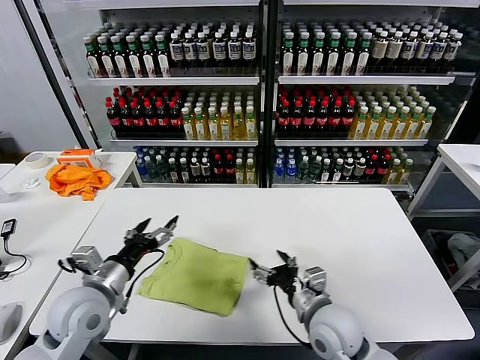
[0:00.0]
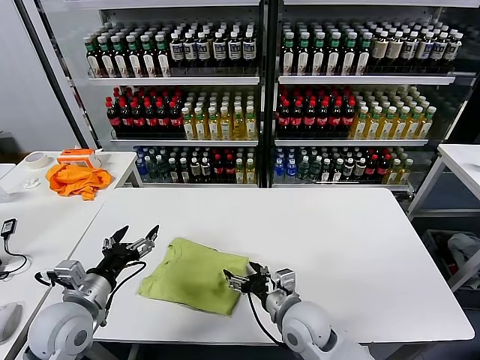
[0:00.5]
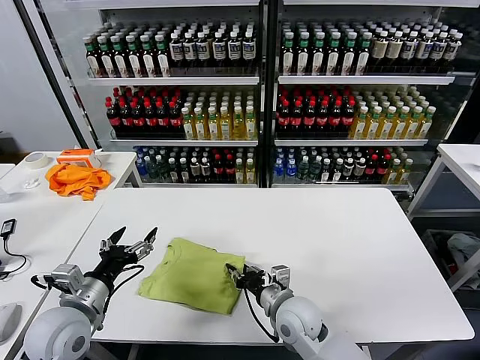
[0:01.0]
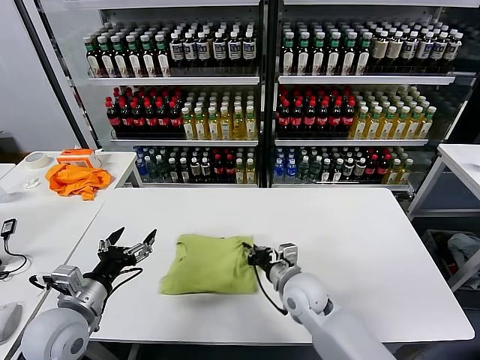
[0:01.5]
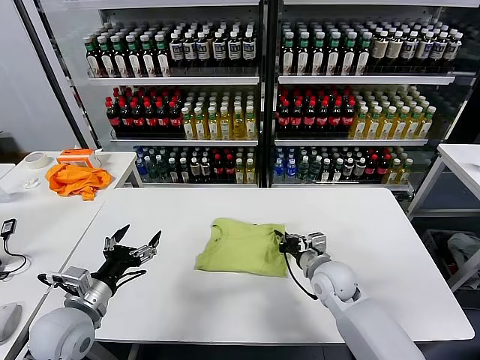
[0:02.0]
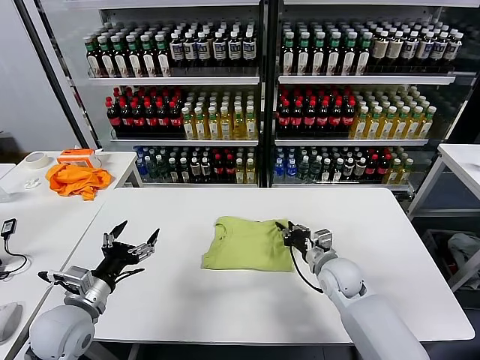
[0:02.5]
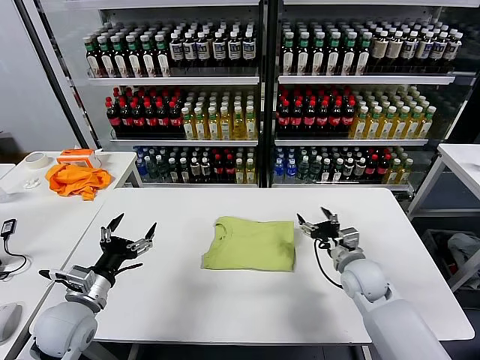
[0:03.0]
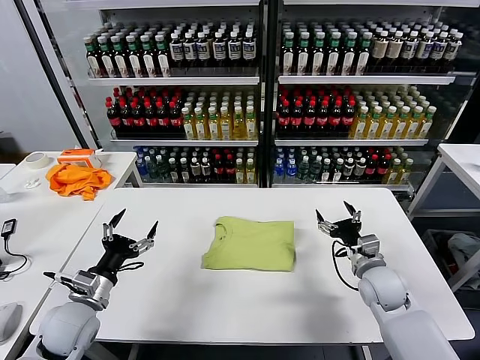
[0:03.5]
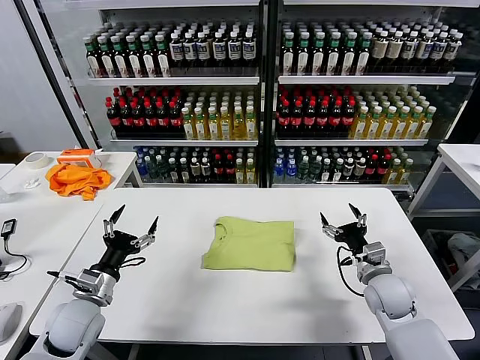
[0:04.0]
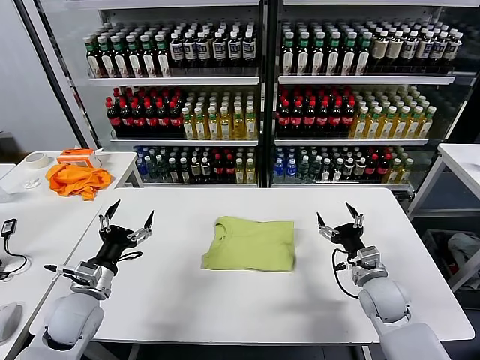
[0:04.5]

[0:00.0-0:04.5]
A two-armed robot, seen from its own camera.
Task of the whole recording: fold and organize the clothes.
Step, 0:00.0 to 0:02.5: Drag the clothes to the center of the table.
0:00.0 to 0:02.0: The left gripper shifts by roughly 5 cm. The right gripper is displaced forward by approximately 10 cm, and closes its fingers.
0:02.0 to 0:04.5: The right gripper is displaced to the right by about 10 cm, and opens up; the left gripper ends up roughly 5 cm from where it was.

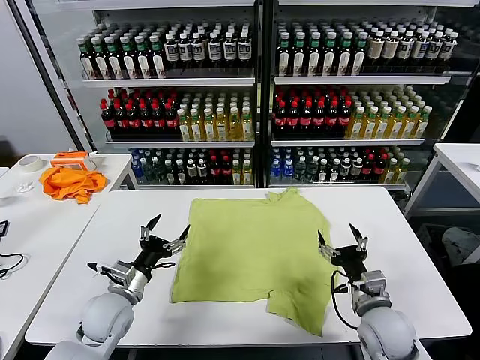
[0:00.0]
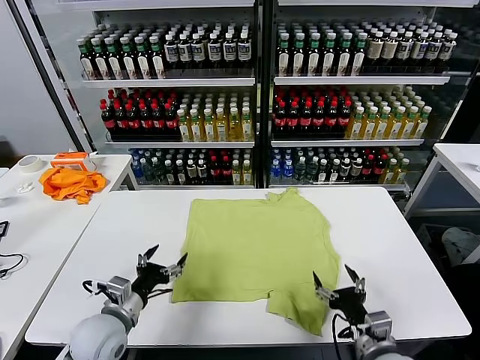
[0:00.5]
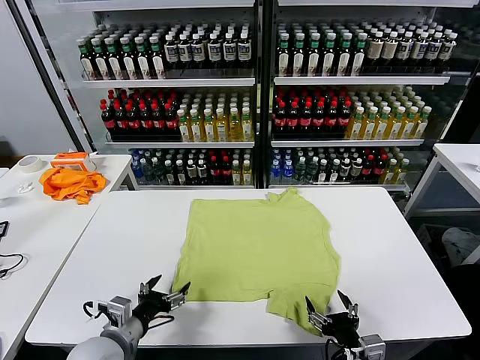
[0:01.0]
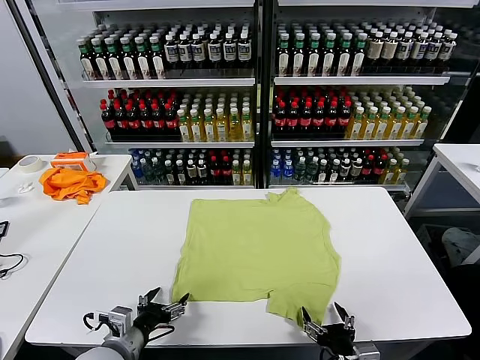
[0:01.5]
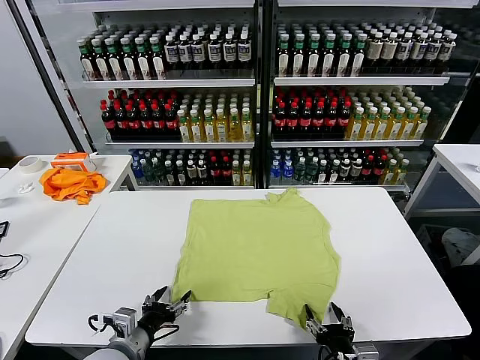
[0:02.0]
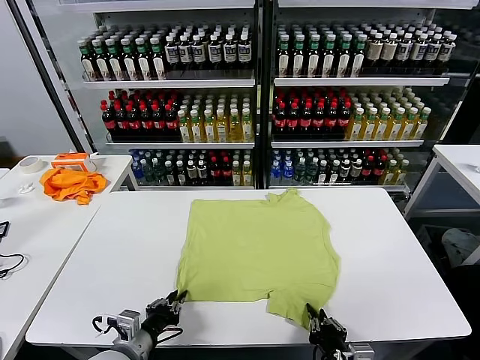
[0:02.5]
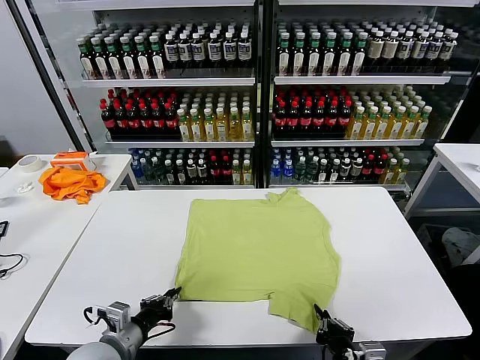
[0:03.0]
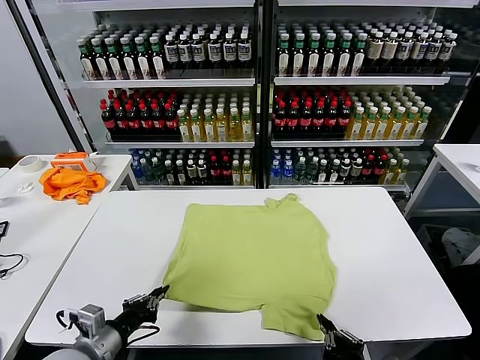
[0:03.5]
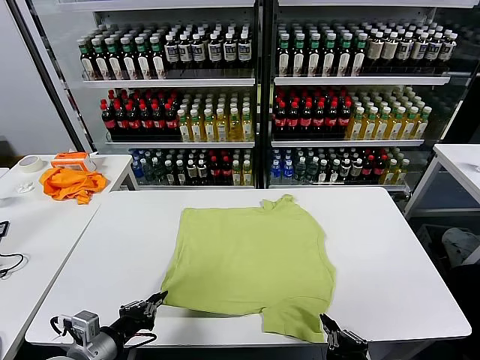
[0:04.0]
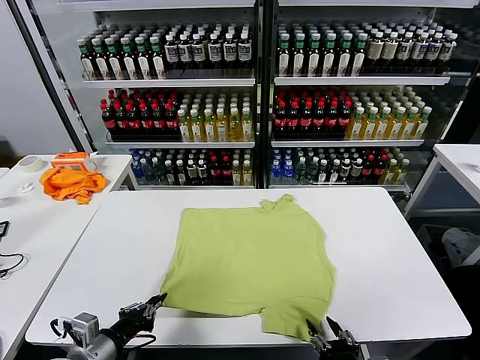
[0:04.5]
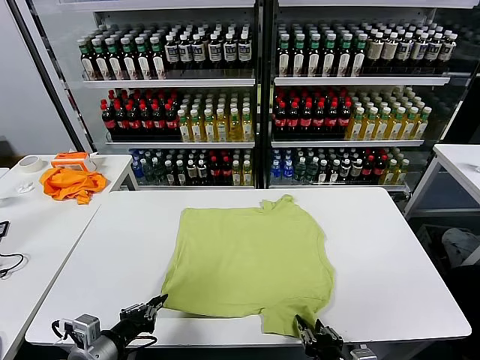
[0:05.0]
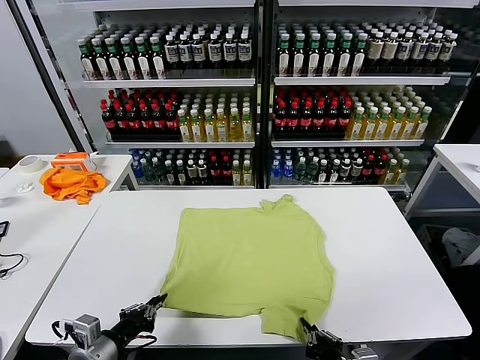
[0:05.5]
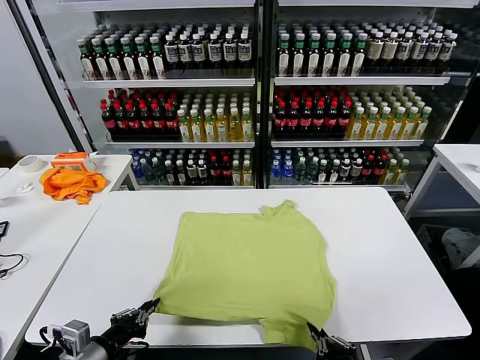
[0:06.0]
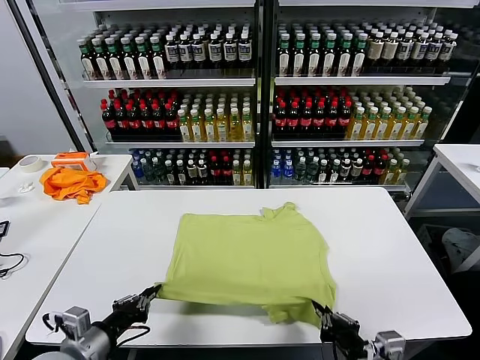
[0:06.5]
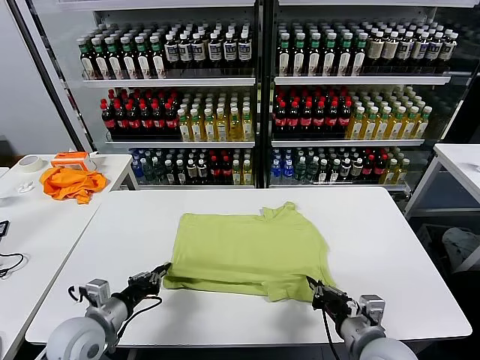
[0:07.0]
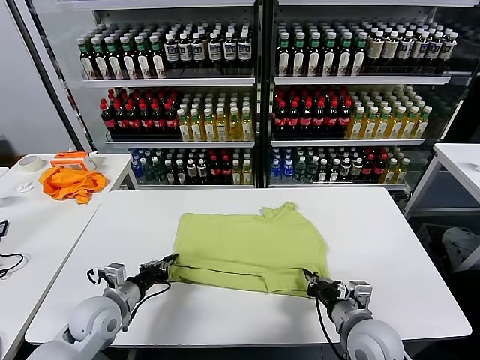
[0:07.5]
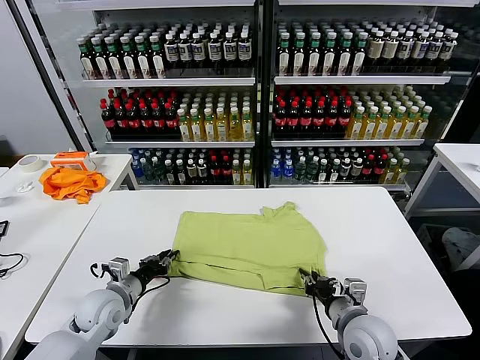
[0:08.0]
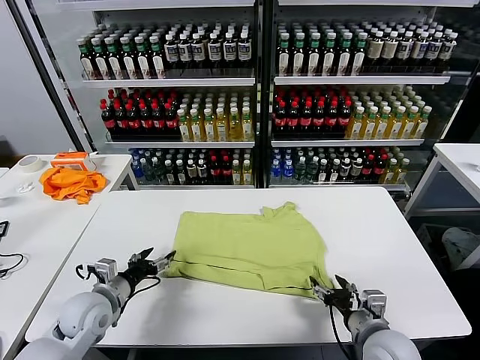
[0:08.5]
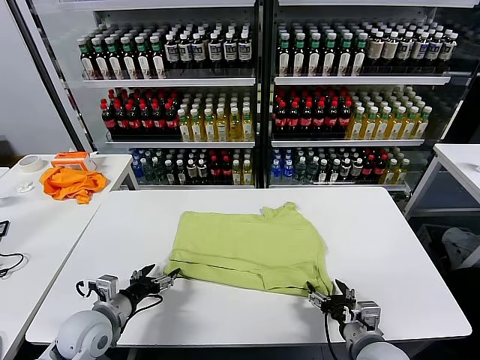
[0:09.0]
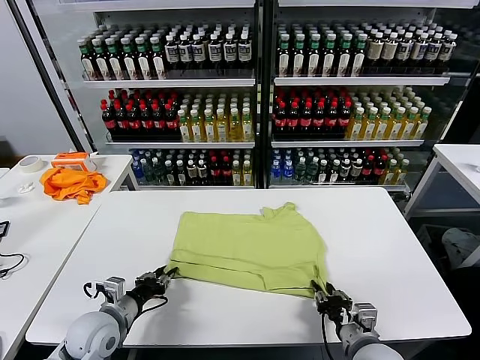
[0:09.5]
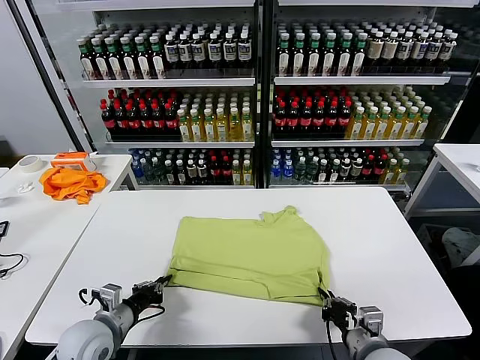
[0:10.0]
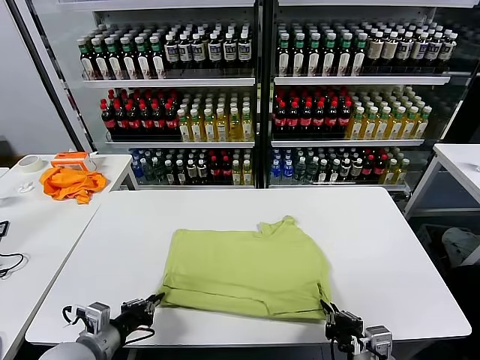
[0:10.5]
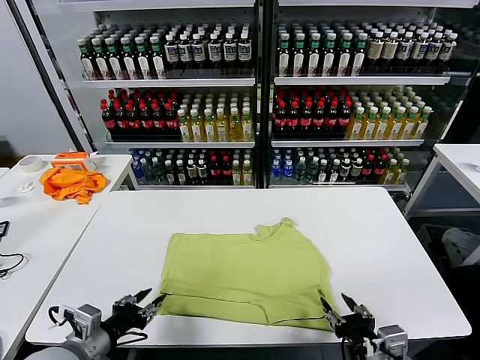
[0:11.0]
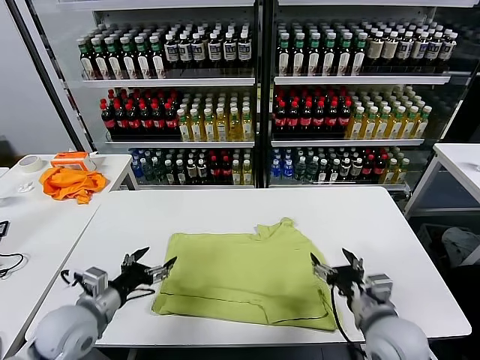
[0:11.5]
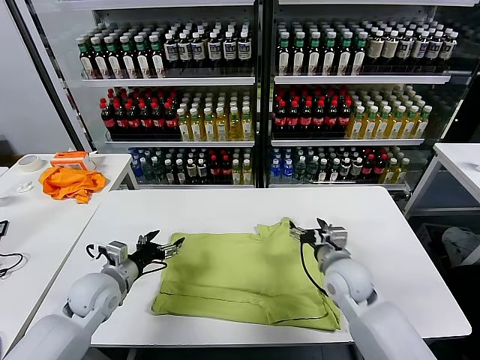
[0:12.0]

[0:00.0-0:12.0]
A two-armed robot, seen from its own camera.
Task of the whole recording: fold and organize the clothes.
Step, 0:00.0 to 0:02.5: use both grippers simultaneously to clamp the lower edge of the clothing fabric.
Step, 0:03.0 to 0:08.0: use both grippers to drag the lower edge of the fabric forward and fold it over the upper edge.
Step, 0:08.5 to 0:10.5: Drag the clothes downward with both gripper.
0:02.0 to 0:04.0: The two grippers go about 5 cm upward. The right gripper closes its fingers; the left gripper closes its fingers.
0:04.0 to 0:06.0: The right gripper opens and closes again.
0:06.0 to 0:08.0: The left gripper heads forward and downward, covering about 20 cm. Meanwhile the right gripper goes some 15 cm forward, and opens.
0:08.0 to 0:10.0: The two grippers go roughly 5 cm backward. The left gripper opens and closes again, while the right gripper closes its fingers.
0:10.0 to 0:12.0: The left gripper goes approximately 10 cm forward, and opens up. The right gripper is displaced forward by about 20 cm, and opens its fingers.

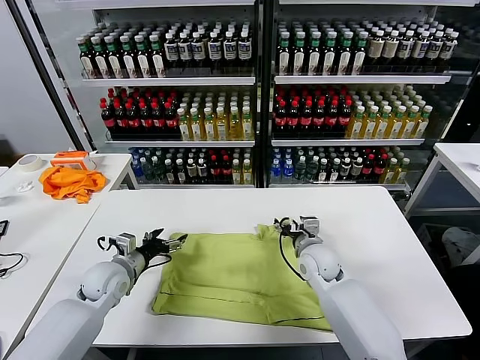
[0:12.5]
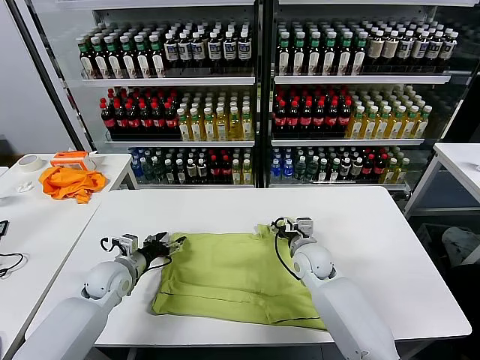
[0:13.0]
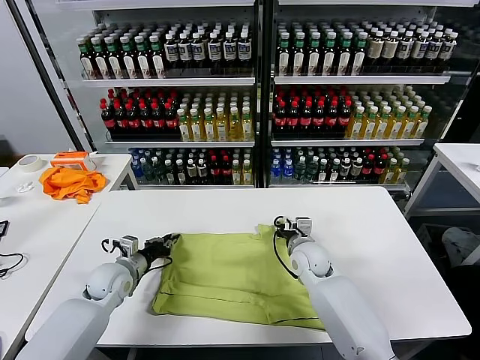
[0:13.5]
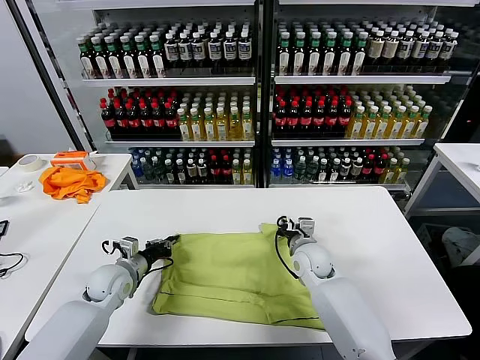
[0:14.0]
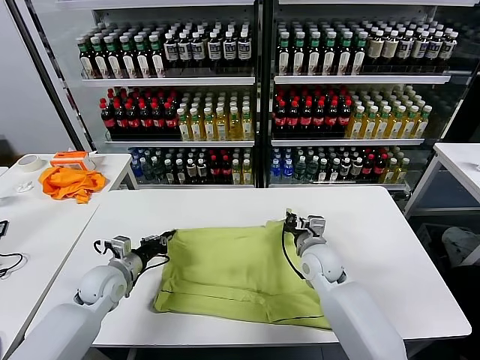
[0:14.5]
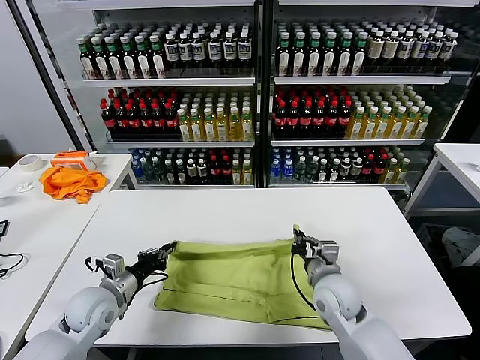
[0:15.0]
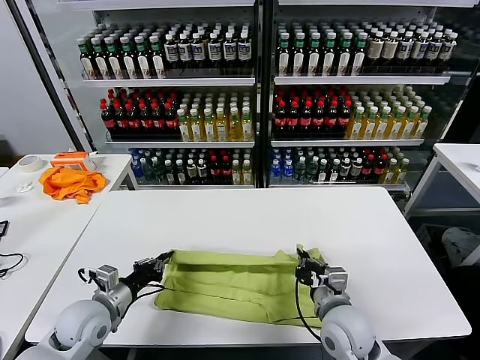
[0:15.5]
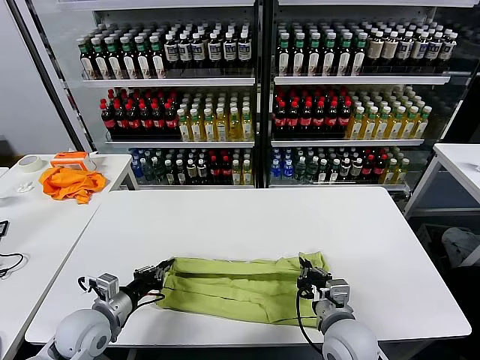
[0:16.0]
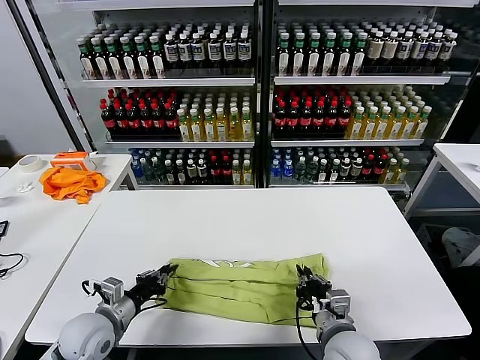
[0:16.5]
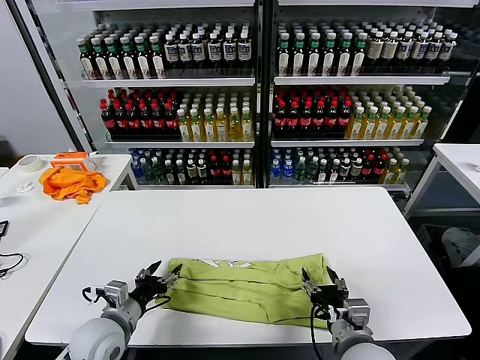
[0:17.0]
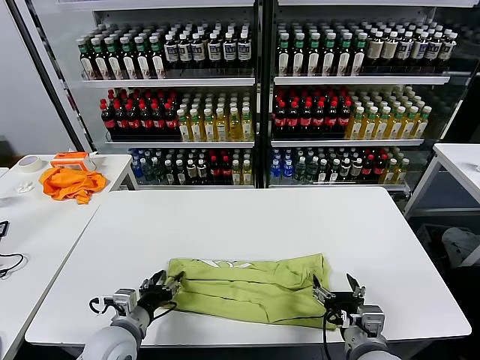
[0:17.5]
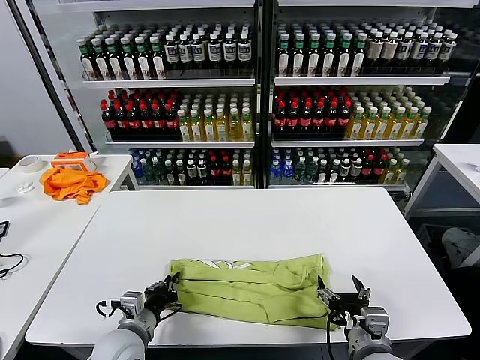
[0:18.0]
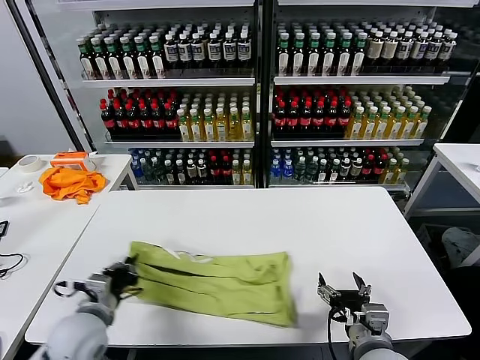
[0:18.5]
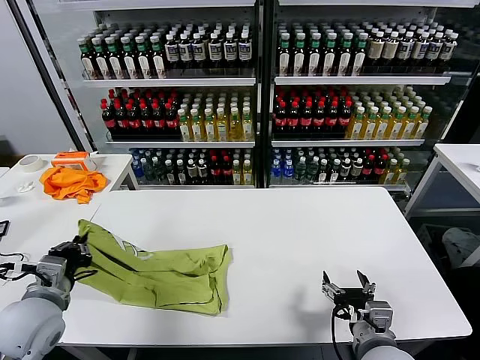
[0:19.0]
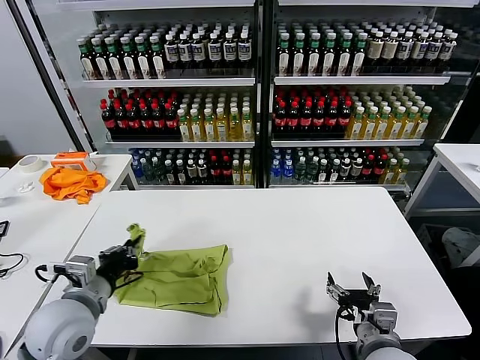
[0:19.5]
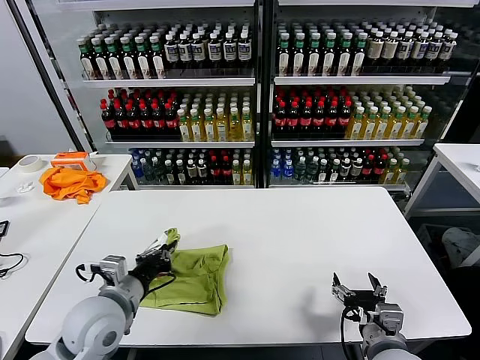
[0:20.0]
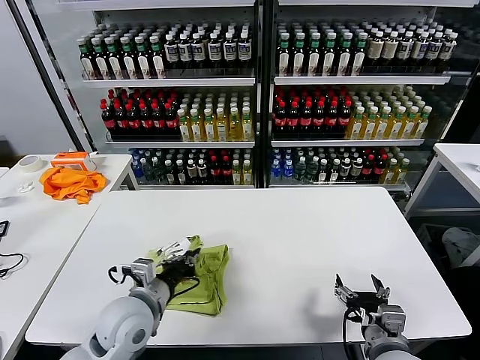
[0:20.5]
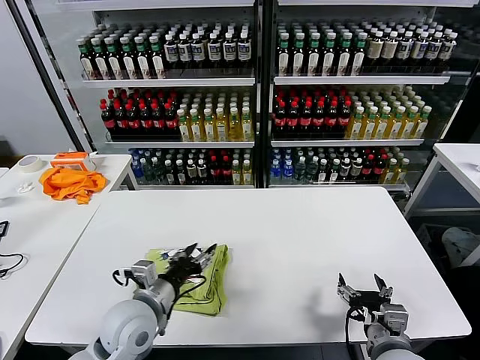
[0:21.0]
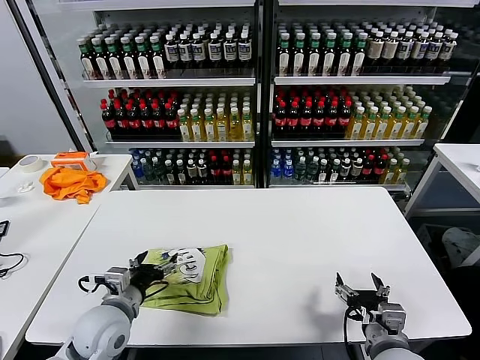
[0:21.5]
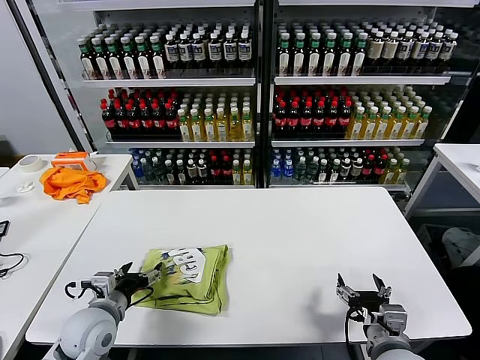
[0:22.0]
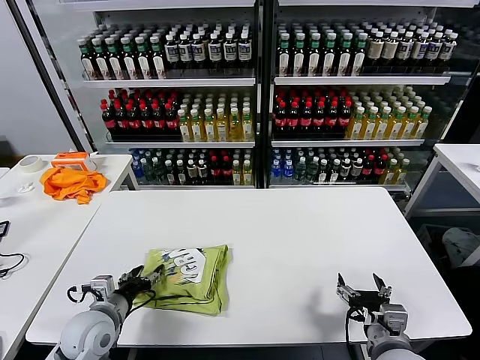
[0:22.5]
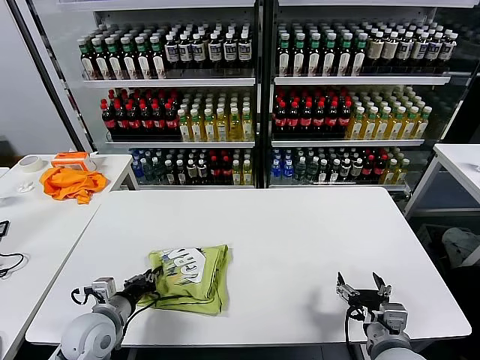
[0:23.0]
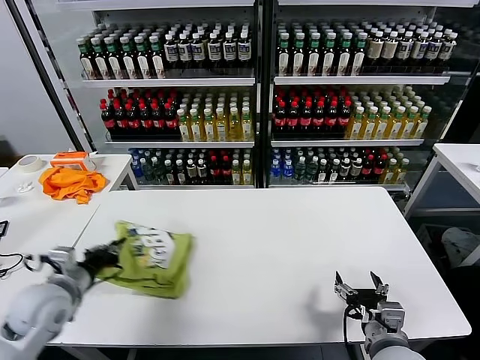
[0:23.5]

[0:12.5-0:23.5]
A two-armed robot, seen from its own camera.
Task of the whole recording: fold and organize the clothes.
Step, 0:14.0 to 0:16.5: use both grippers to drag the upper edge of the fabric backward and fold it over the lower edge.
Step, 0:17.0 to 0:18.0: use the left gripper to clamp the left edge of the fabric.
Step, 0:18.5 to 0:20.5: use the left gripper to drag the left edge of the fabric to the left and folds it over the right edge.
0:12.5 to 0:14.5: The left gripper closes its fingers, while the right gripper closes.
0:14.5 to 0:16.0: The right gripper moves backward, approximately 15 cm, while the left gripper shifts approximately 10 cm backward.
0:16.0 to 0:18.0: The left gripper is displaced to the right by about 5 cm, and opens, then closes again; the right gripper goes approximately 5 cm backward, and opens up.
0:18.0 to 0:20.0: The left gripper shifts about 10 cm upward.
0:20.0 to 0:21.5: The left gripper is displaced downward by some 5 cm, and opens.
0:21.5 to 0:23.5: The left gripper goes some 10 cm to the left, and closes its fingers.
